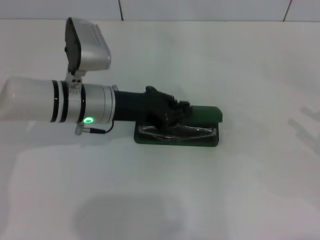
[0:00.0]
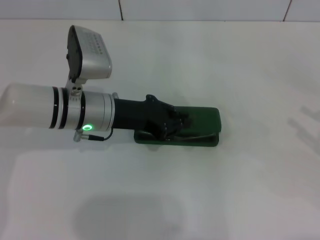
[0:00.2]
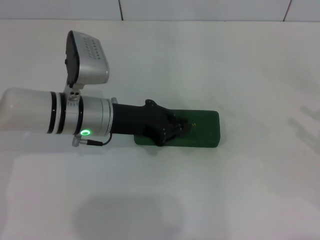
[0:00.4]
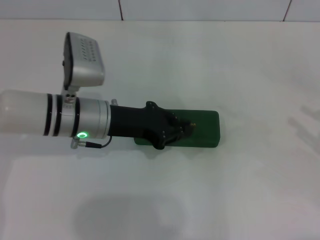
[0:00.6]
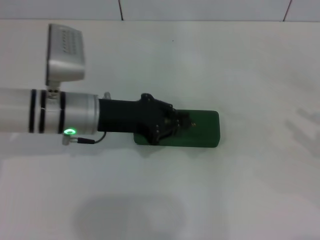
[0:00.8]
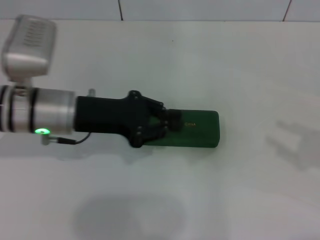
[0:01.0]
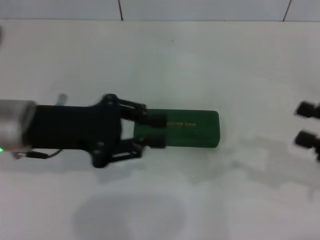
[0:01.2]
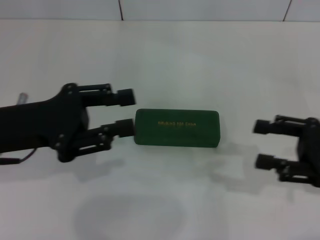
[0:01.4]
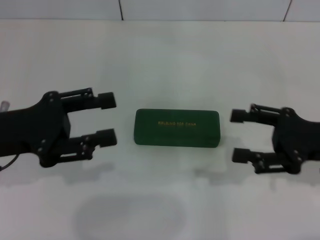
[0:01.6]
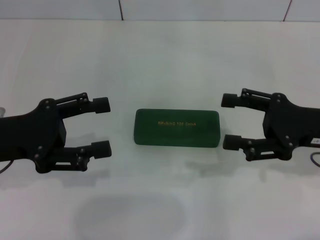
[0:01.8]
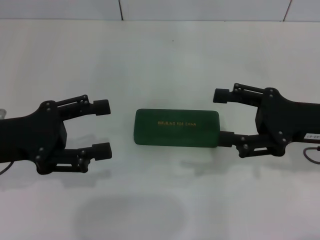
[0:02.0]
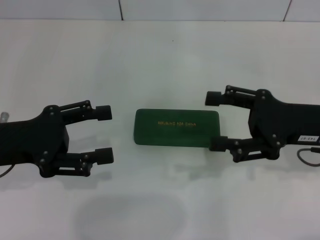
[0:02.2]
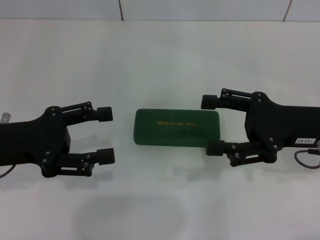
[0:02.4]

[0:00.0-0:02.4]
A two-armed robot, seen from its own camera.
0:00.0 to 0:01.2: The left gripper is displaced to the left, backward and upward by some 10 cm, while the right gripper moves to the left, about 5 cm.
0:01.2 to 0:02.4: The right gripper shifts some 10 cm to the left and forward, while the left gripper heads to the left, covering approximately 5 cm, and opens.

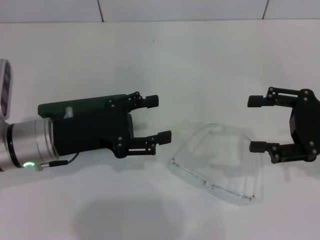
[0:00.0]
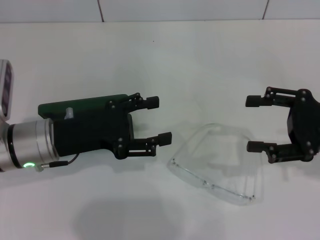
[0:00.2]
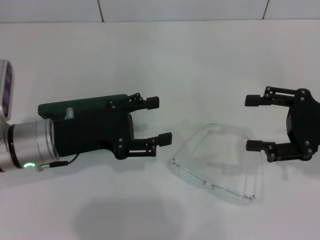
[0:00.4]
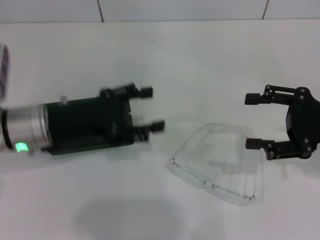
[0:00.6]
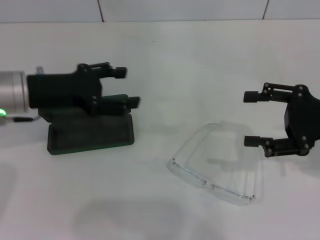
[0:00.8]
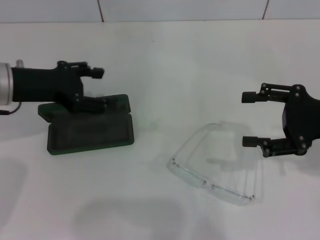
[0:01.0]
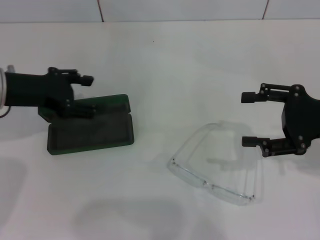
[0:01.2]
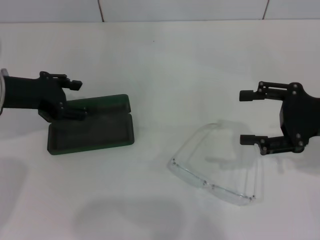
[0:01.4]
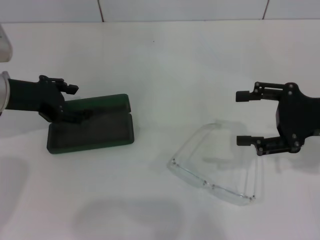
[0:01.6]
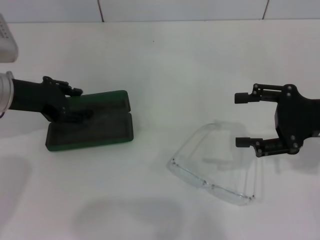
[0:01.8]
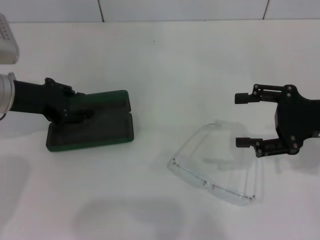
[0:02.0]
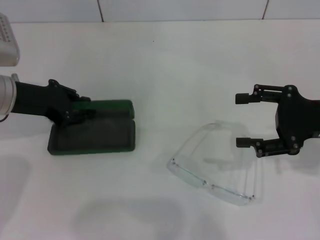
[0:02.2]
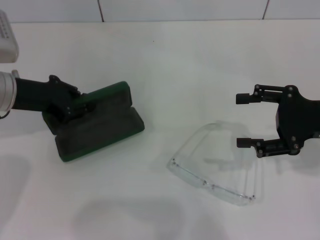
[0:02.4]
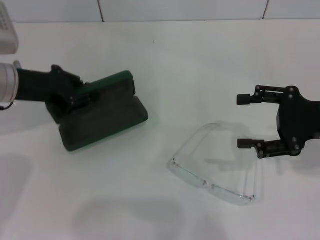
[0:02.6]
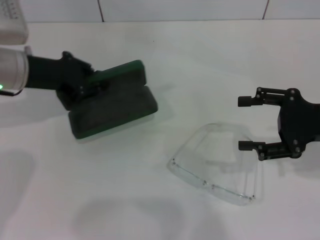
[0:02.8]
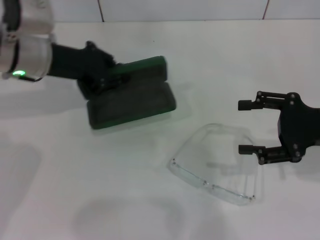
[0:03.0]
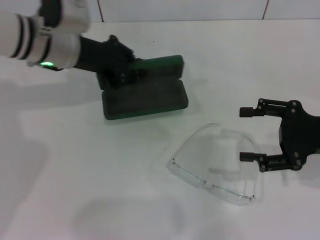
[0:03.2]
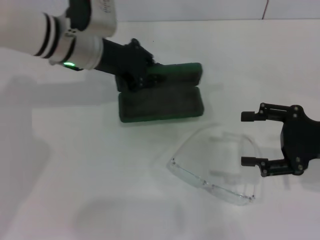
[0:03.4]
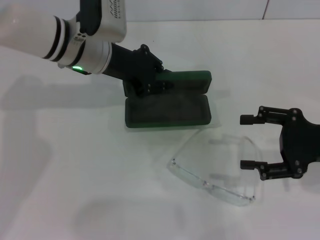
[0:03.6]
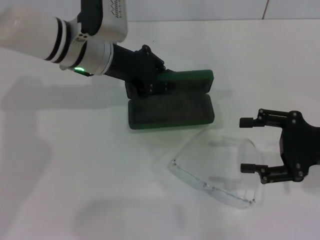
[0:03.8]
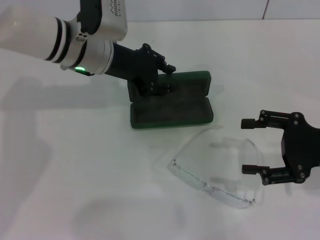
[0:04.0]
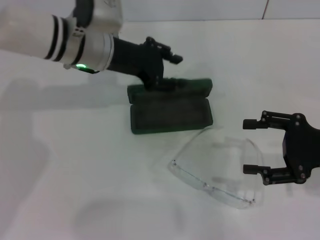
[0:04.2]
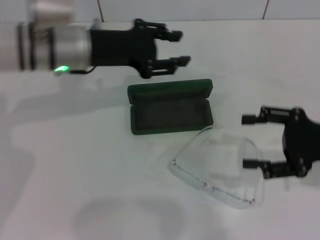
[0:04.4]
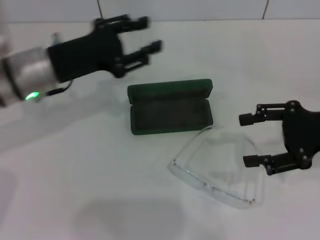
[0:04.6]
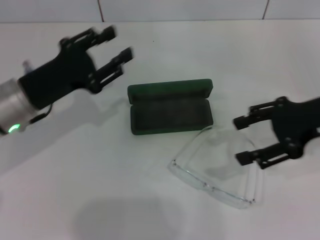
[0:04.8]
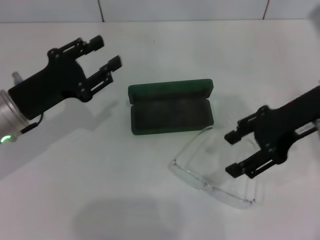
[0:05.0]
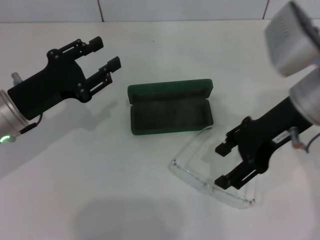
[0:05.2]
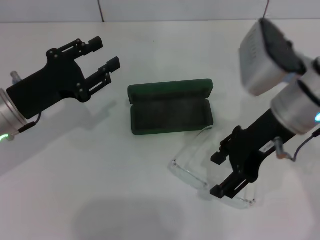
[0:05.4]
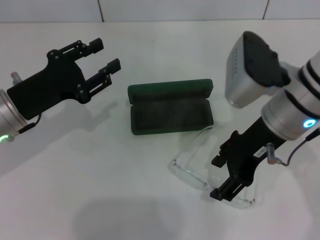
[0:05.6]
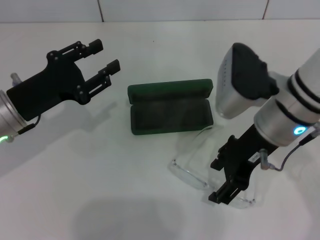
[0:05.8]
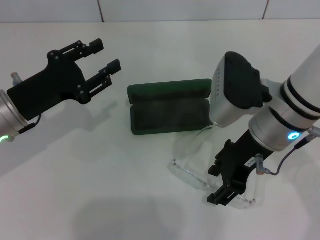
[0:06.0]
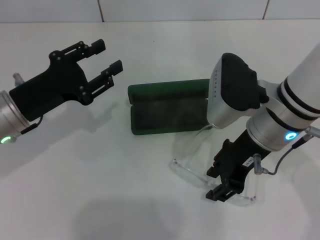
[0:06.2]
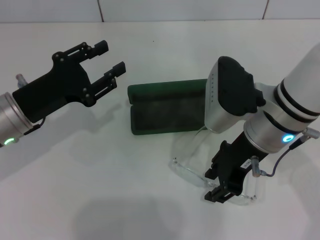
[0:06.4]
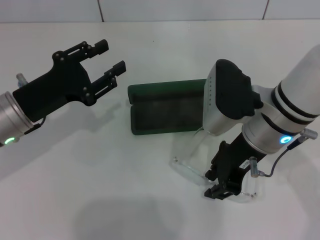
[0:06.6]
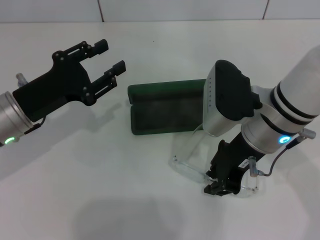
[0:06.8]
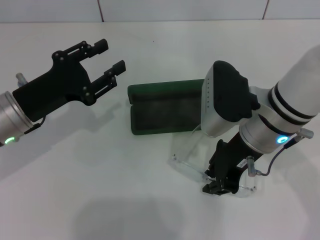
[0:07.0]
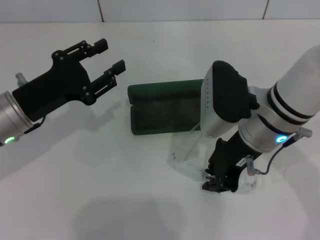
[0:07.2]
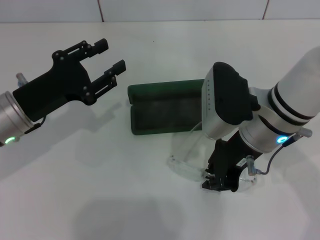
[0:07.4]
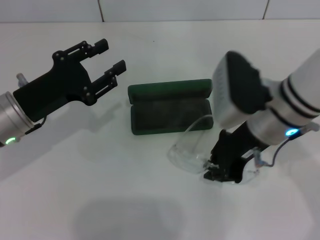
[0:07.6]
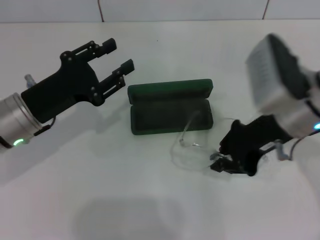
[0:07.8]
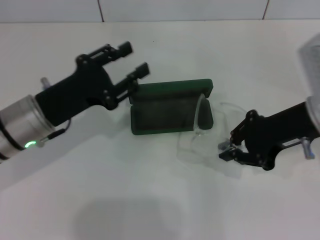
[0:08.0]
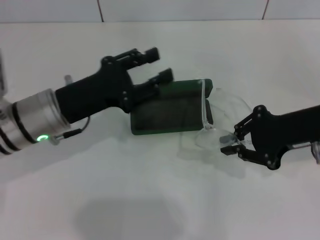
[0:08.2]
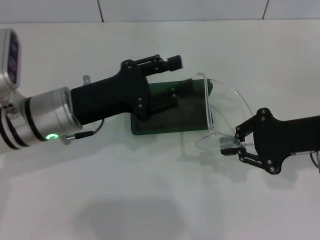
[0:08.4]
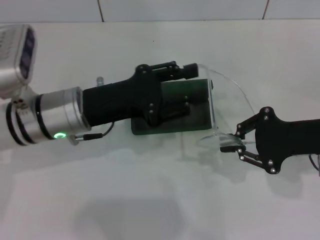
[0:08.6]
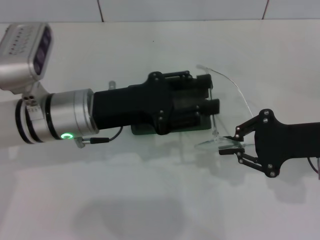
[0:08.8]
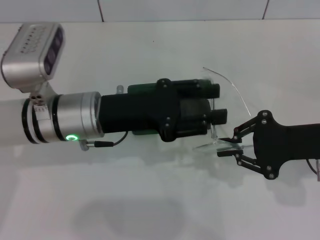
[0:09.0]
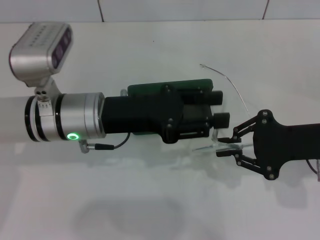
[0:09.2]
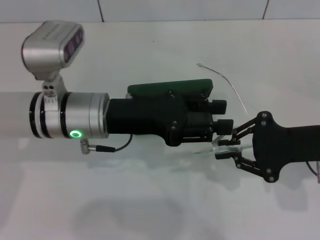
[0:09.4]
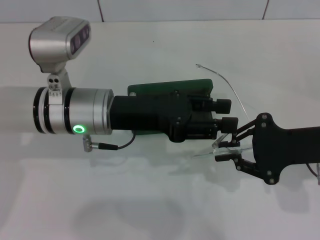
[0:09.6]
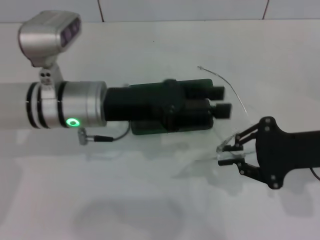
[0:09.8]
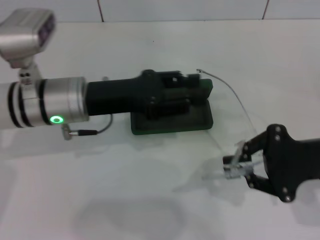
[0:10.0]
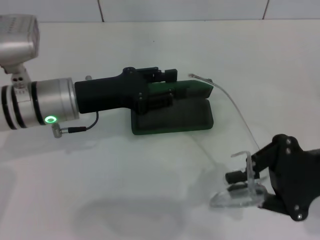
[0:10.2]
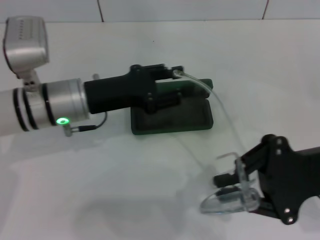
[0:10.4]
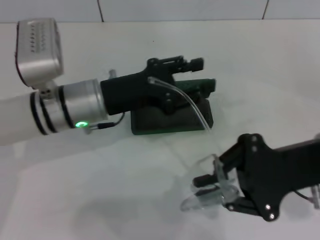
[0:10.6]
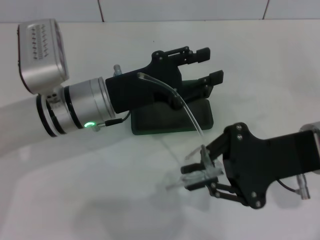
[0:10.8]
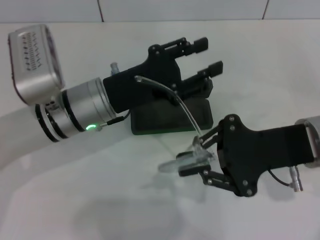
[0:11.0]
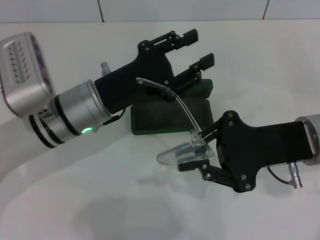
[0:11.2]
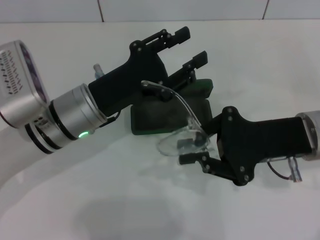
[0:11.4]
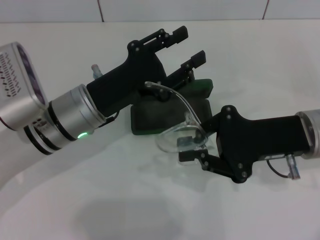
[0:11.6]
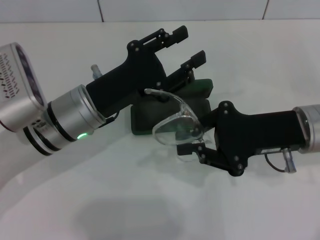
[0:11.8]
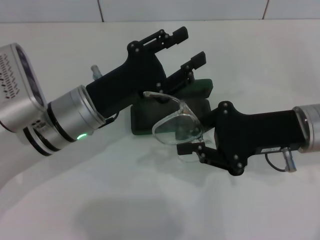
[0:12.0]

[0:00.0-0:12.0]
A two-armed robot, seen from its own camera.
Step, 0:00.0 to 0:01.8: Grab the glasses case with your left hand.
Step, 0:02.2 to 0:04.0: Place the glasses case in the center of the table with your left hand.
Step, 0:04.2 to 0:07.2: Grab the eyeglass frame with your right hand.
0:00.0 to 0:01.6: The left gripper heads forward and to the left, covering about 10 cm.
0:01.6 to 0:03.0: The left gripper moves to the right, some 5 cm, and closes.
0:03.0 to 0:04.4: The left gripper heads to the right, covering roughly 5 cm.
0:04.4 to 0:06.0: The left gripper travels backward, to the left and downward by some 15 cm. Meanwhile the right gripper travels to the left by some 15 cm.
0:06.0 to 0:07.6: The right gripper closes.
0:07.6 to 0:09.0: The grippers both shift to the right by approximately 10 cm.
0:10.4 to 0:12.0: The right gripper changes place by approximately 5 cm.

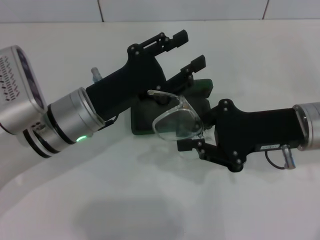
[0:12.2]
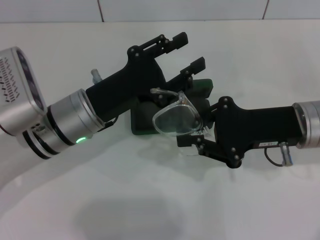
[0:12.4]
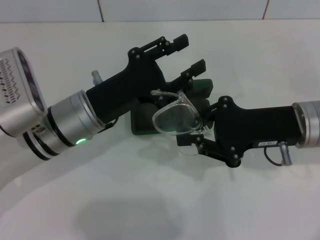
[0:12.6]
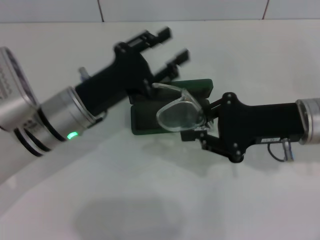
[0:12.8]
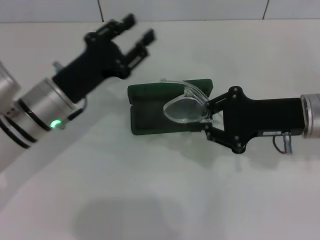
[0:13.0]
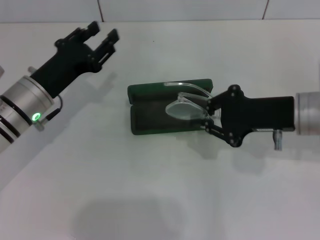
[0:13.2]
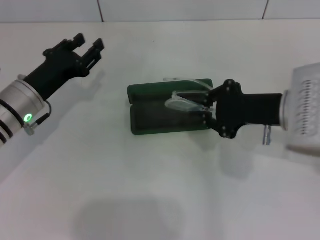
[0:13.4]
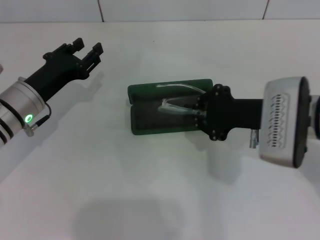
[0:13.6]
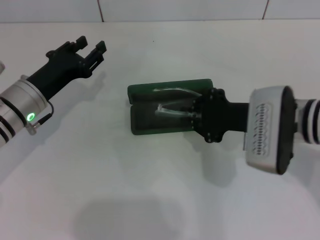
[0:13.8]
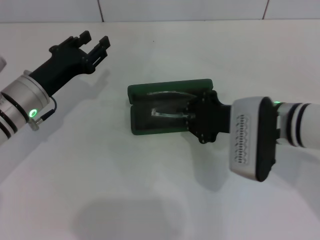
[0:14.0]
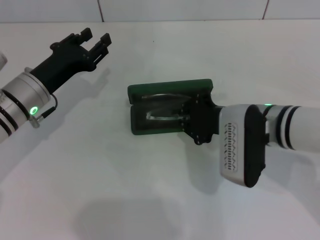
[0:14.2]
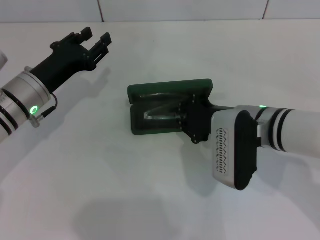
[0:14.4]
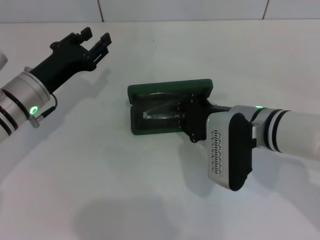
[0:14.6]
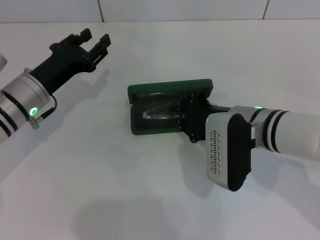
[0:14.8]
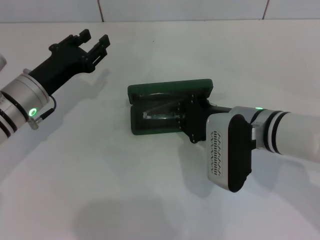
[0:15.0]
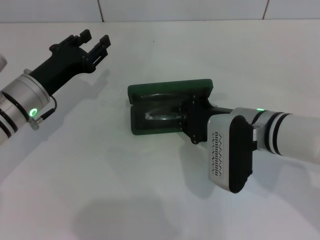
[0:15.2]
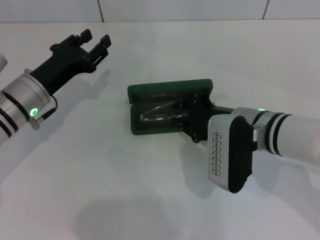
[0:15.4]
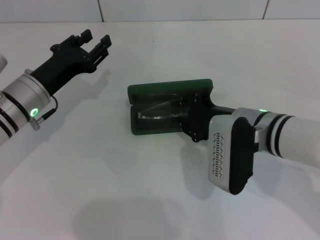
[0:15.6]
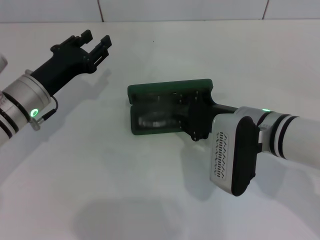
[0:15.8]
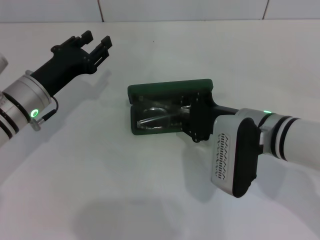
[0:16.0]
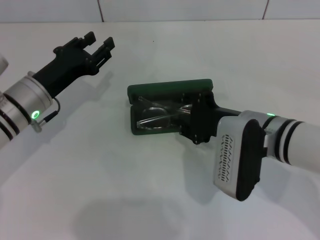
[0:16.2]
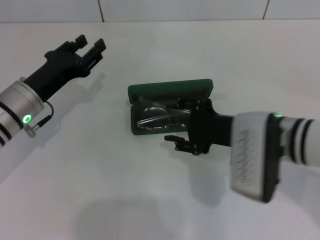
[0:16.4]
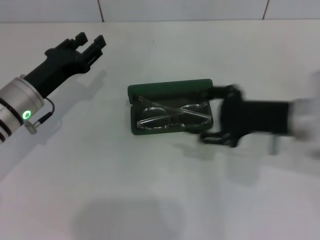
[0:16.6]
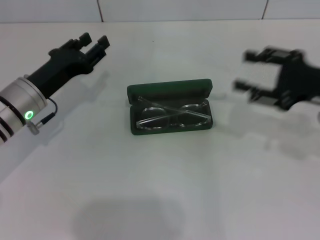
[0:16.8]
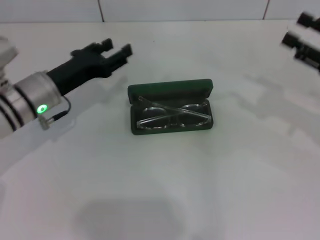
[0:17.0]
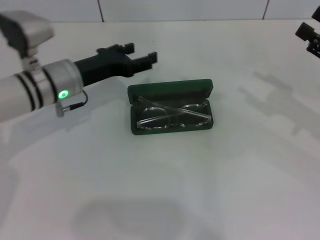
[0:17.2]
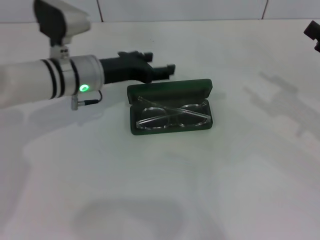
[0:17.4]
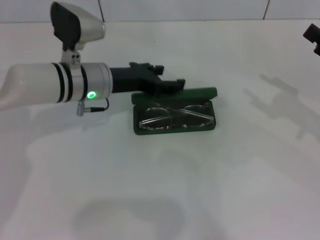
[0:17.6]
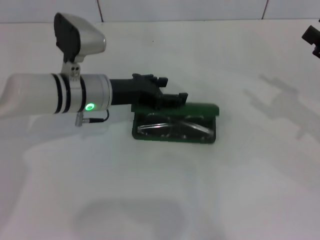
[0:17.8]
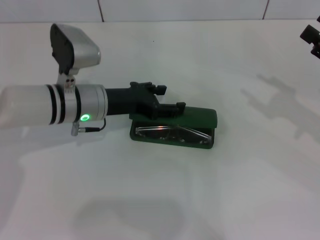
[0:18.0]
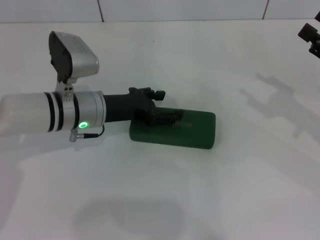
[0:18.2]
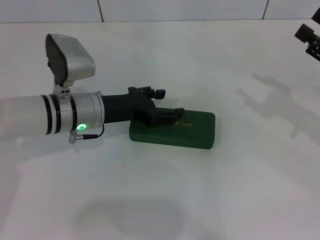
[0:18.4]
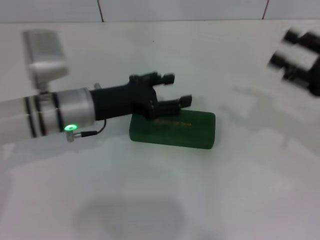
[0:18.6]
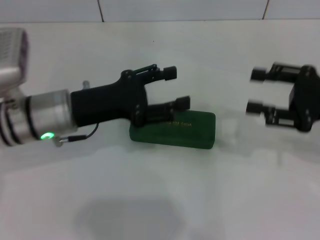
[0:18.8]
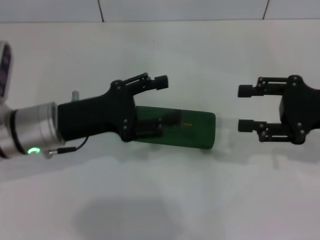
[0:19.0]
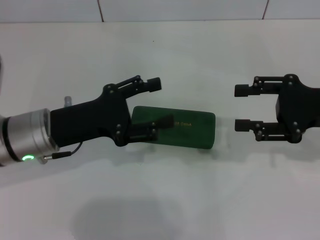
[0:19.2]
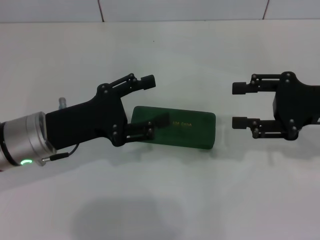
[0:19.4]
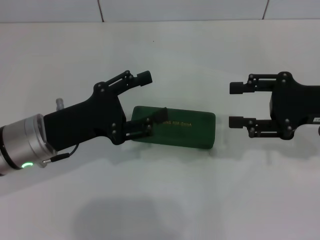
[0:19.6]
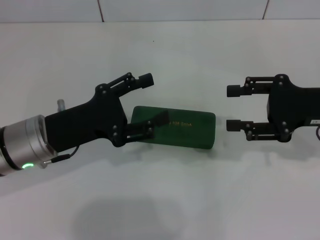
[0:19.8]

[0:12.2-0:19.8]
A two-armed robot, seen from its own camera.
Step, 0:12.8 to 0:15.8: Put the glasses into the case with your right hand.
Step, 0:16.0 to 0:18.2: Close the glasses case with your left hand.
0:12.2 to 0:13.8: The left gripper heads to the left, covering some 10 cm.
0:13.8 to 0:15.2: The grippers stay close to where they were, moving slightly.
0:15.2 to 0:16.8: The right gripper travels to the right and upward by approximately 15 cm, and opens its fingers.
0:16.8 to 0:18.2: The two grippers go approximately 5 cm to the right. The left gripper opens its fingers.
0:18.2 to 0:19.8: The left gripper travels backward and to the left by some 10 cm. The right gripper goes about 5 cm to the left.
